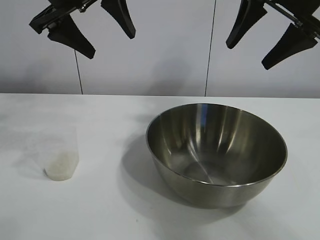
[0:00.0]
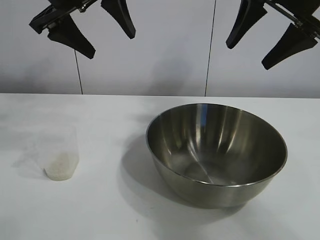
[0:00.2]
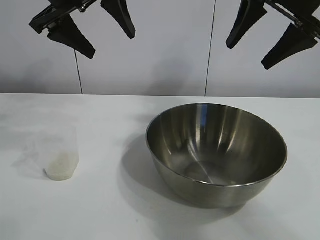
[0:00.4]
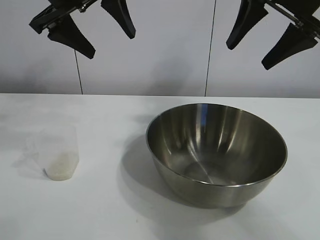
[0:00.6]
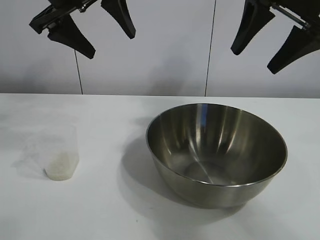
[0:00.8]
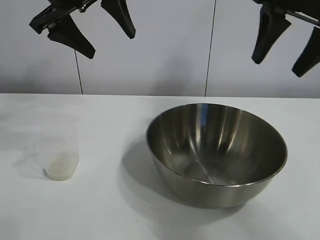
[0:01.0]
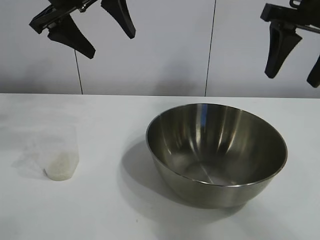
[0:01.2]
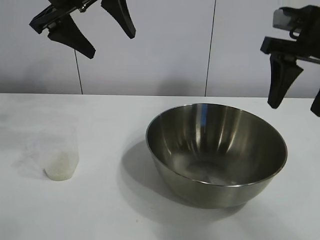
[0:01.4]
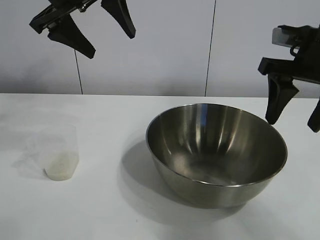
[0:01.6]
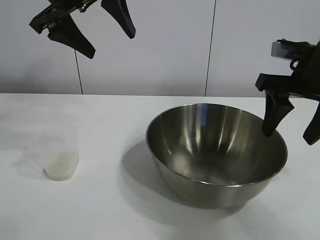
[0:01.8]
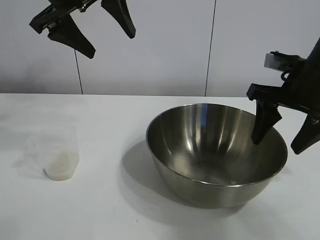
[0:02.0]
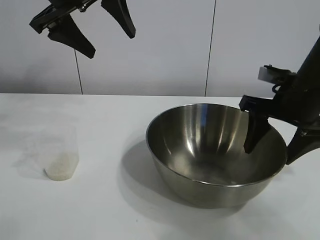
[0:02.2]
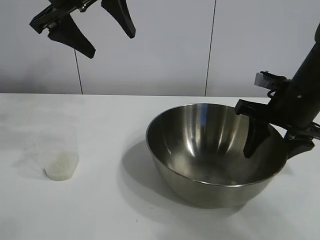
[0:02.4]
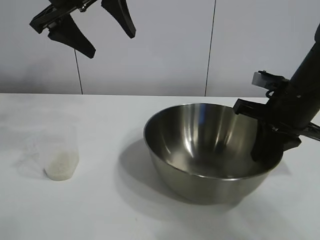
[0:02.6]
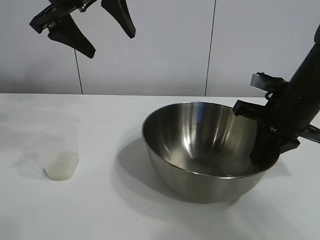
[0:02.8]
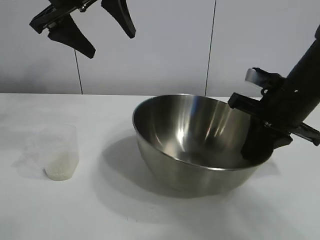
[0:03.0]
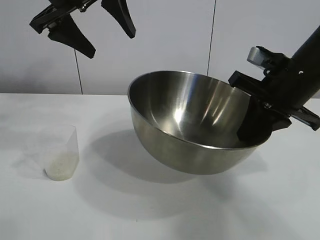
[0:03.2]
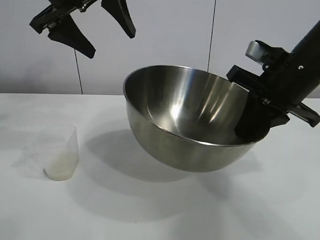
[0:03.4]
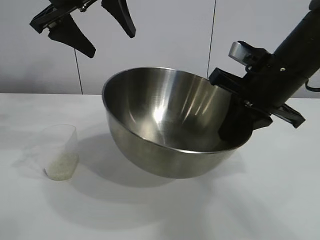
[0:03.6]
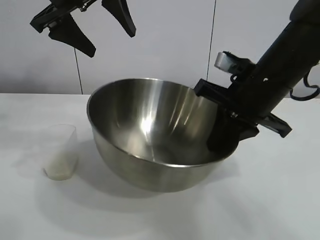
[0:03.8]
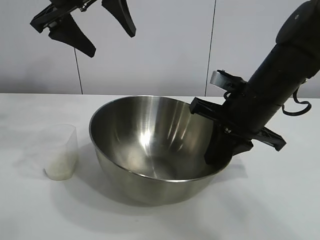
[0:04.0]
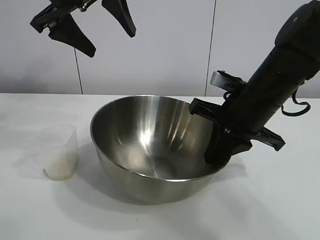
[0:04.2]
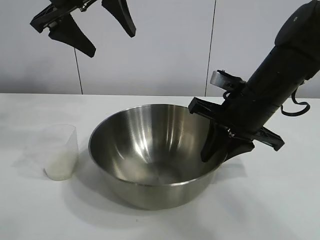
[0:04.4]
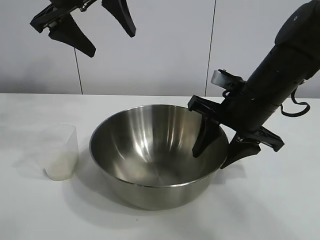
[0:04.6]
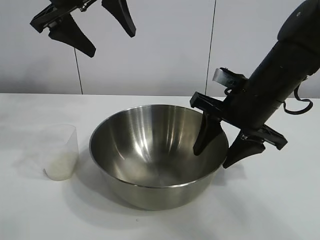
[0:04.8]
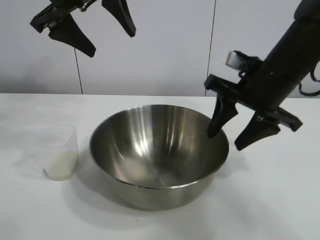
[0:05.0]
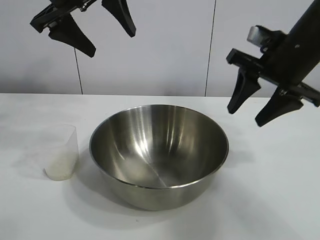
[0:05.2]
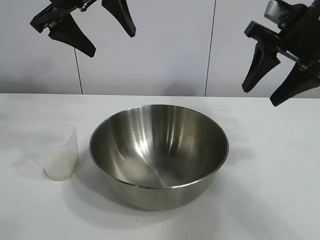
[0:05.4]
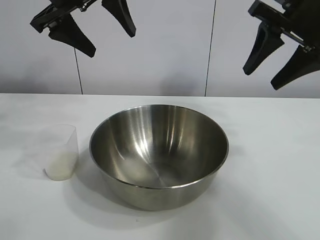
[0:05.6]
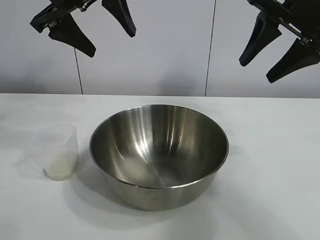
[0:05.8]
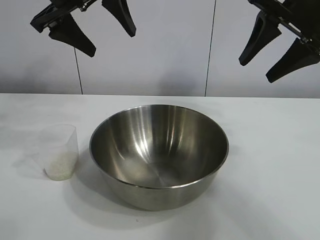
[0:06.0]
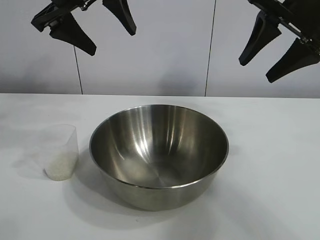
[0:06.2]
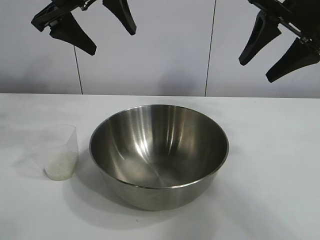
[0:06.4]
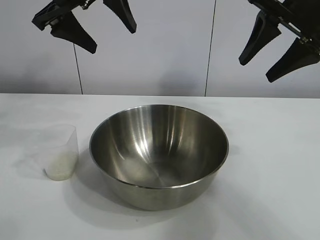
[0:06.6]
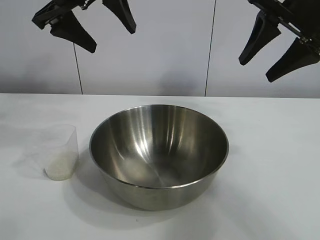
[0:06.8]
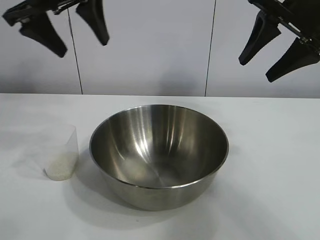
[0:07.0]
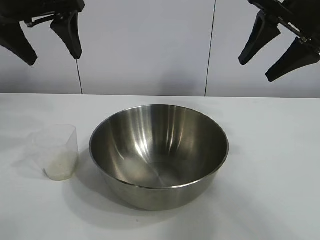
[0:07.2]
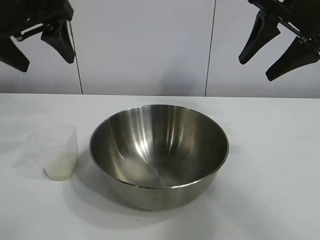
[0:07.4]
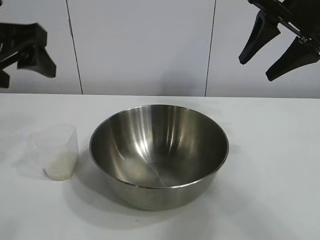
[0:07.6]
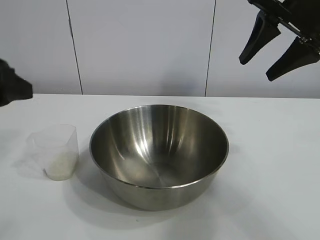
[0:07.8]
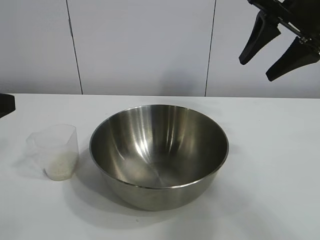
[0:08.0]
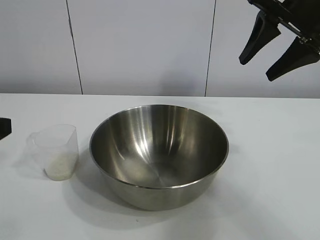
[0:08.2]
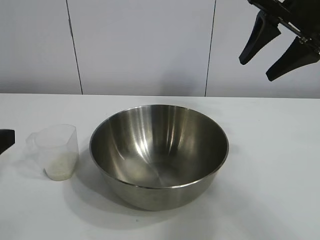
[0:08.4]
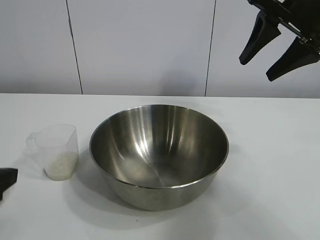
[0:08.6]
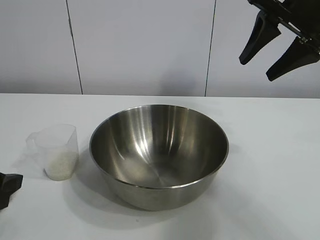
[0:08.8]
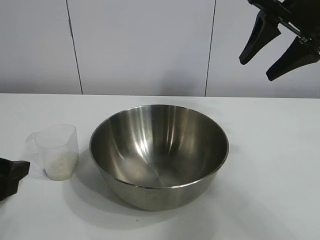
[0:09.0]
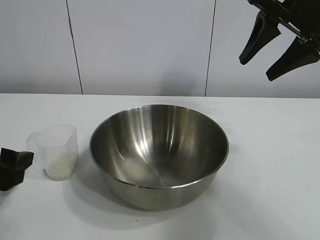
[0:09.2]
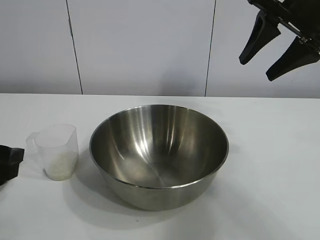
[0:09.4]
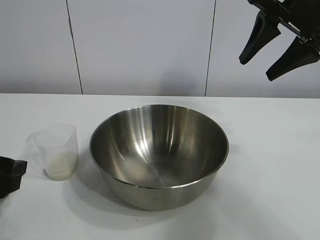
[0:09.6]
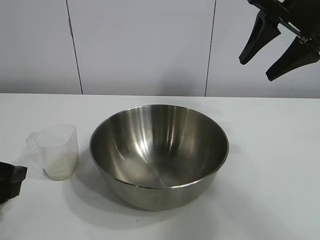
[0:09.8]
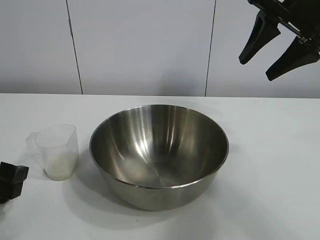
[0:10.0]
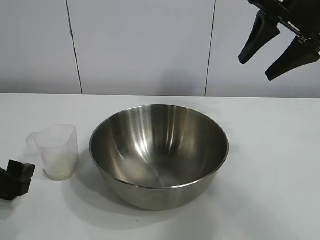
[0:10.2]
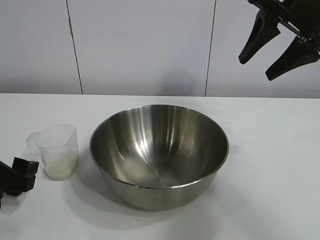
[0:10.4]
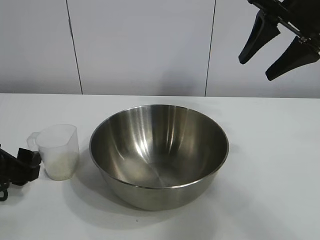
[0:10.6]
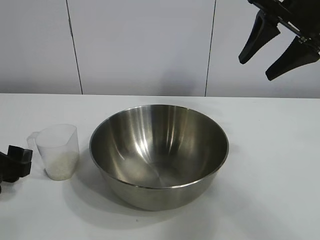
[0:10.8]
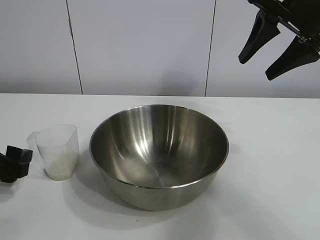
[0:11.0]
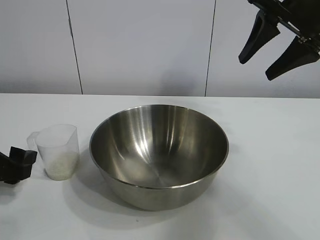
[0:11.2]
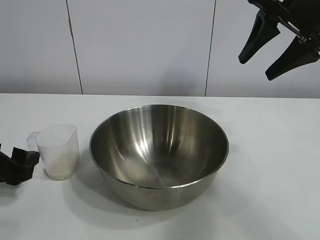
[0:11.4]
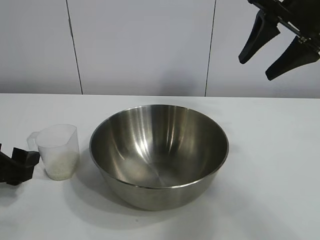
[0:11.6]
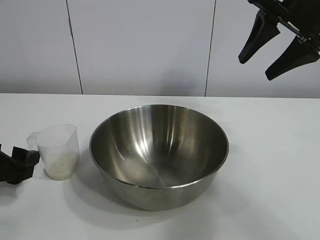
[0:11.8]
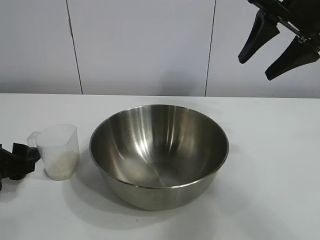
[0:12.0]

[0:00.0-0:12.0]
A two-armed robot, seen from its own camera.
Task of the whole recording: the right gripper grasp the rice container and place it in the center of the table, the left gripper grasp the rice scoop and pour the rice into the rice container.
Step, 0:00.6 to 0:05.0: Move the bowl in the center of view with right gripper.

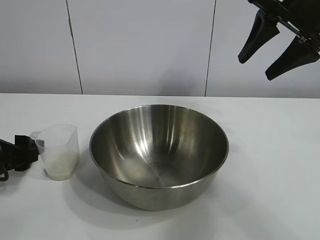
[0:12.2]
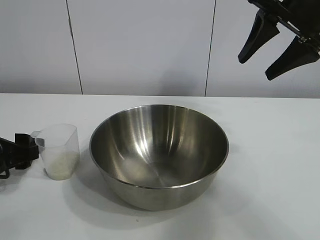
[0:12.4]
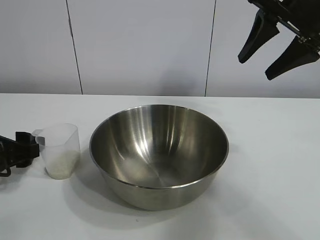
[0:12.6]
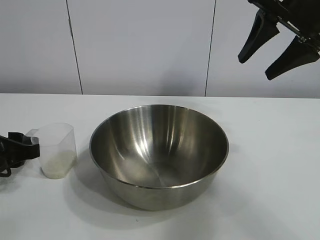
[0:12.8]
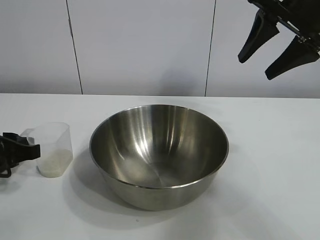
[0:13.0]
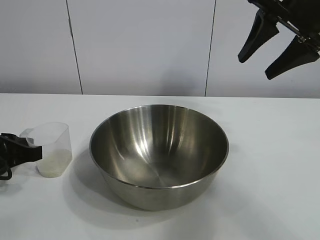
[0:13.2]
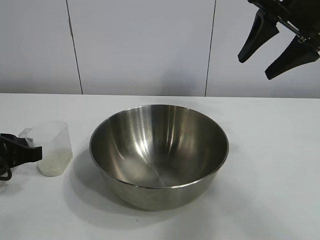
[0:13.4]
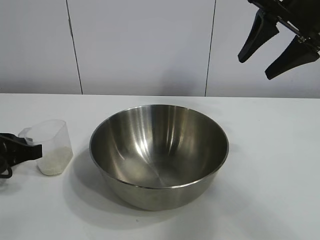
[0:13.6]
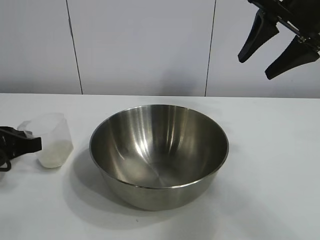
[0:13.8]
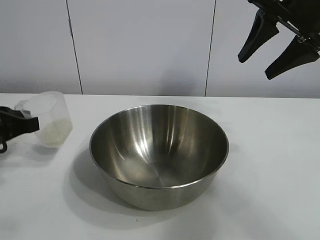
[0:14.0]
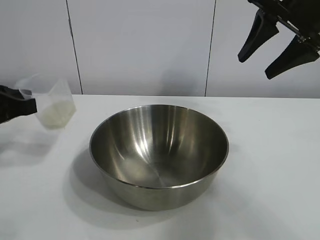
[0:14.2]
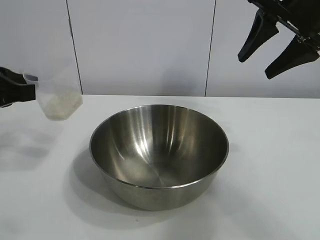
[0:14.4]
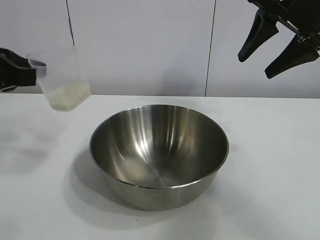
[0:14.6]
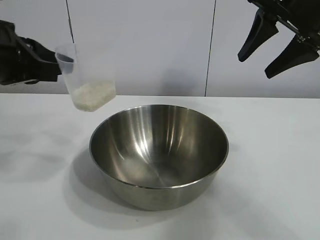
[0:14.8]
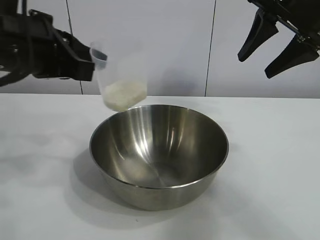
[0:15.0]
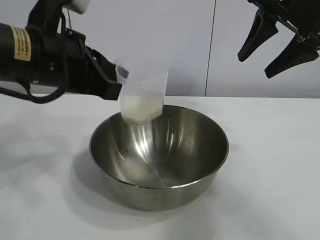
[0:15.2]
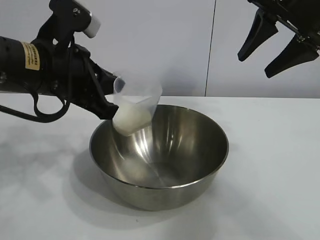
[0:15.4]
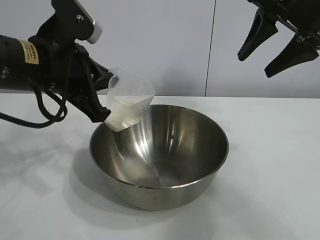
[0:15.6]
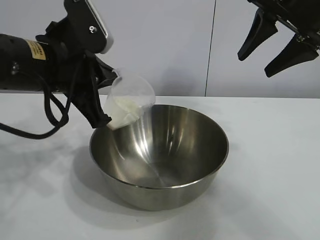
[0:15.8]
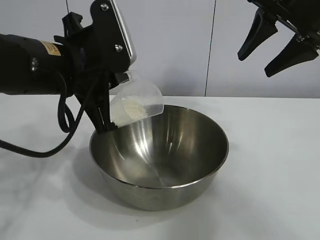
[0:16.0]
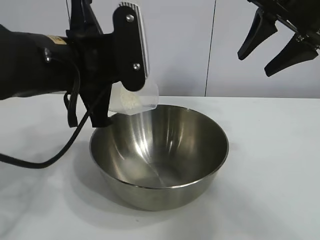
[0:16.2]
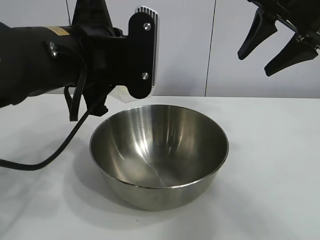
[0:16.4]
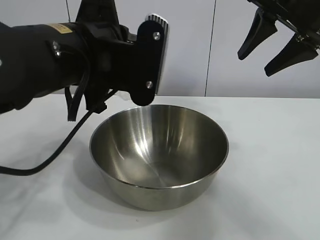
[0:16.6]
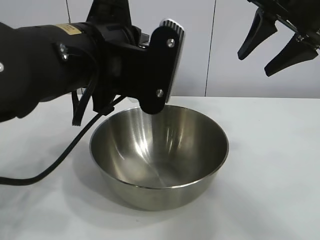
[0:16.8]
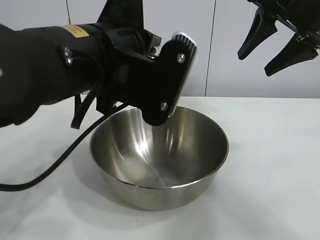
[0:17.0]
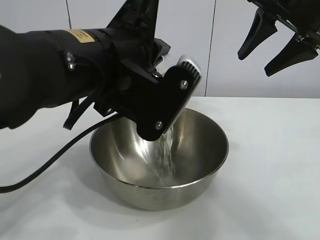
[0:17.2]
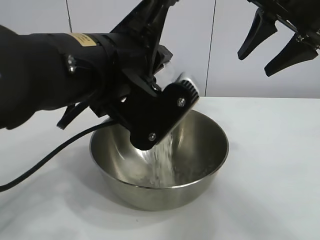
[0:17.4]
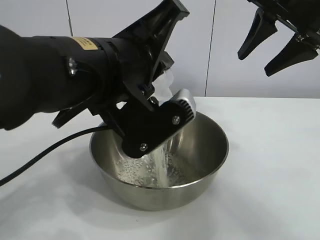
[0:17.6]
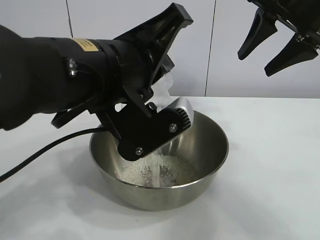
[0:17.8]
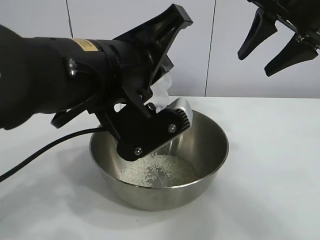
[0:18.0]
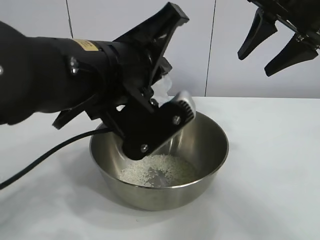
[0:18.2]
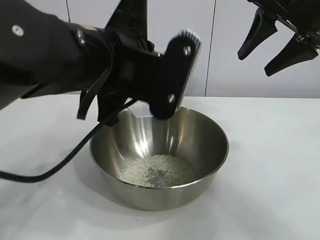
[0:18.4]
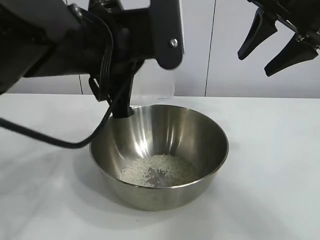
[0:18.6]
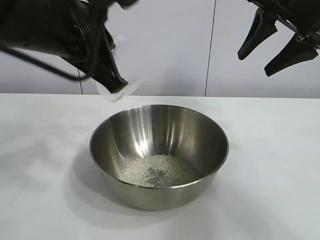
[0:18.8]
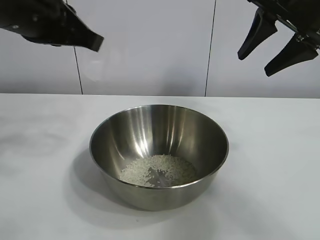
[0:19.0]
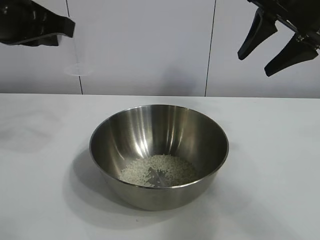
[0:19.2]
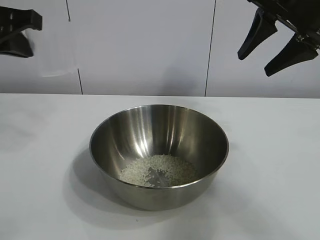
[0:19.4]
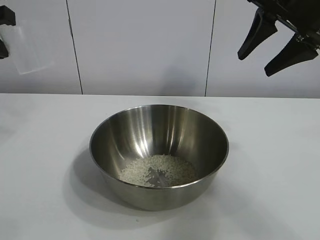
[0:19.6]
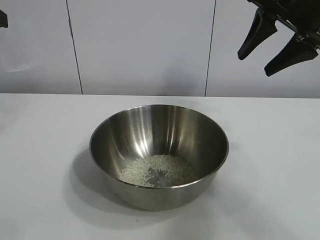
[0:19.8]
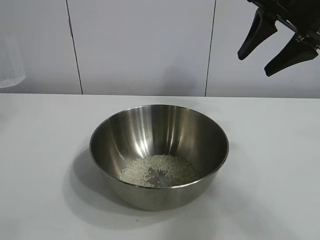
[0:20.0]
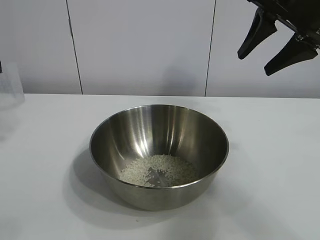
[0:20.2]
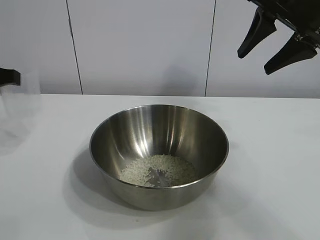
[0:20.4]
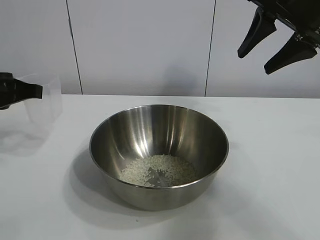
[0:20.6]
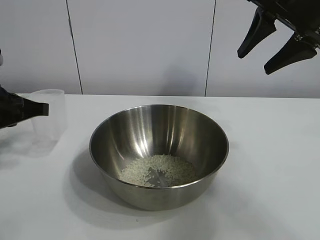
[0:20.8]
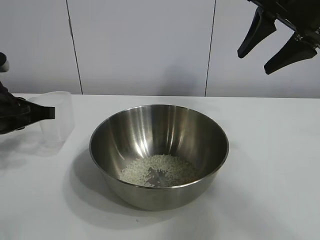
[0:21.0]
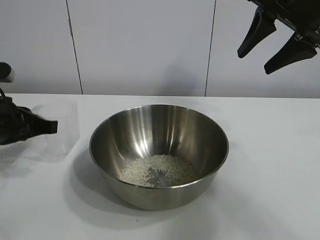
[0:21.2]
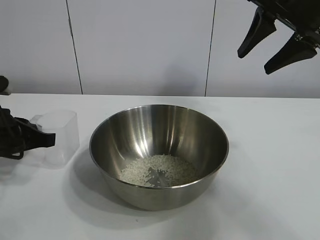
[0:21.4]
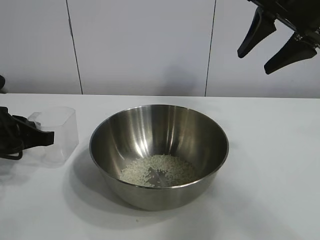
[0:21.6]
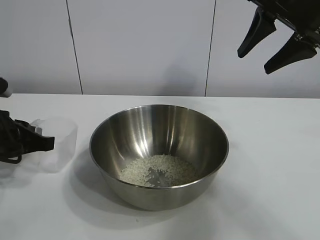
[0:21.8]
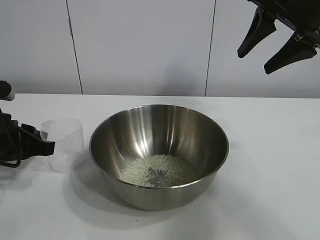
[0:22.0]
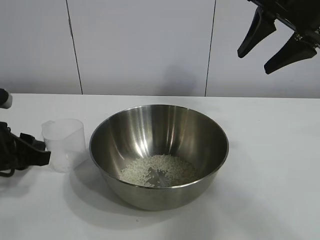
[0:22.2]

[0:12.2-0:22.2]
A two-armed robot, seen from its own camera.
Task of the whole recording: the right gripper grasp the rice container and place it in the center of the table, the left gripper grasp the rice scoop and pour the rice into the rice container.
Step, 0:13.4 to 0:18.4: Pour the rice from the cup into the bowl with the left gripper.
Step, 0:18.6 to 0:21.8: Place the cup on the table with the left gripper.

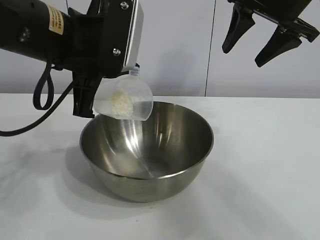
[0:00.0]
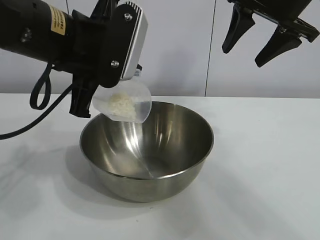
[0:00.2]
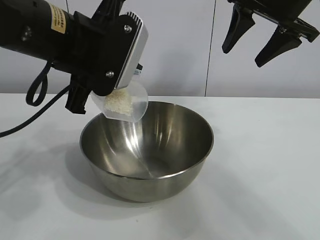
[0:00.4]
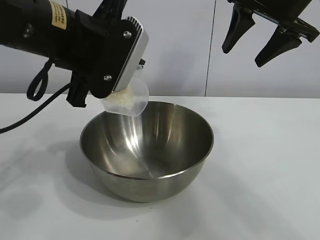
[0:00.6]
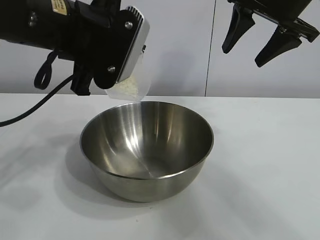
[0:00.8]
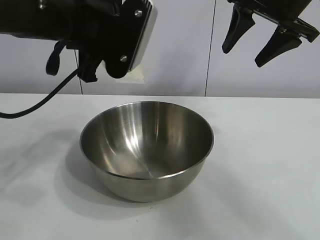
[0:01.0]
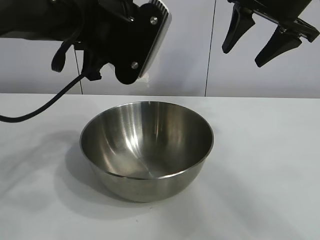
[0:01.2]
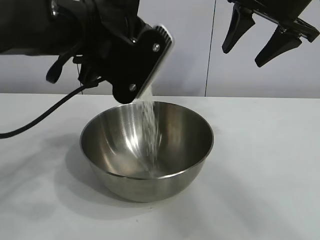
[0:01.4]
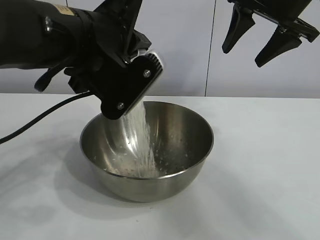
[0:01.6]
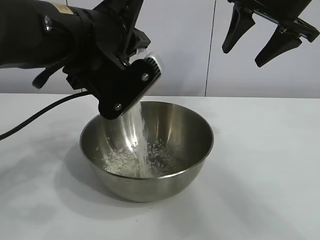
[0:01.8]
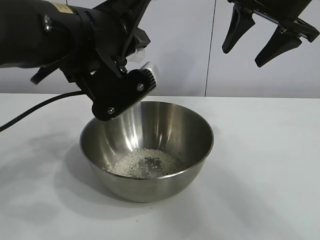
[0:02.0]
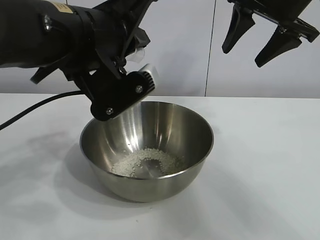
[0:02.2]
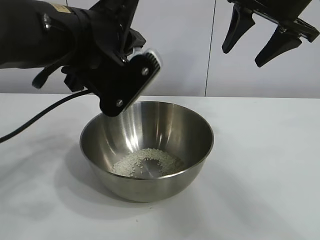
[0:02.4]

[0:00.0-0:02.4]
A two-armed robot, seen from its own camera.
Task of the whole recording: the right gripper grasp the rice container and place it in the center of the table, the left gripper grasp the rice scoop and pour the rice into the rice container.
Step, 0:00.0 to 0:02.2: Pour the rice from the cup into the bowl with the left gripper.
